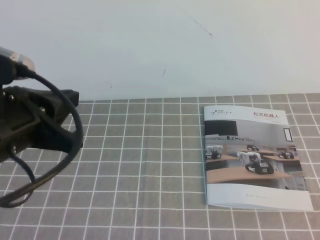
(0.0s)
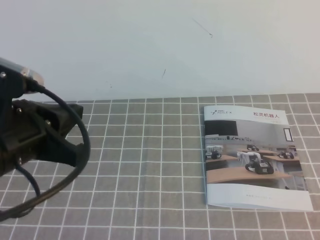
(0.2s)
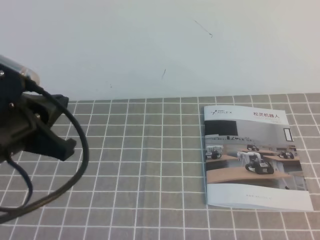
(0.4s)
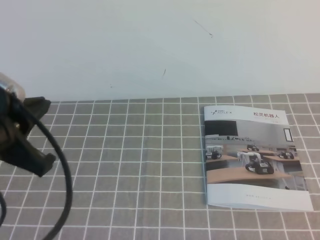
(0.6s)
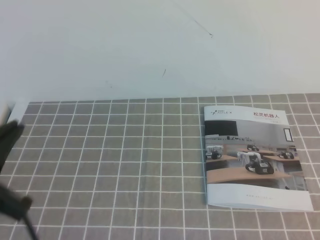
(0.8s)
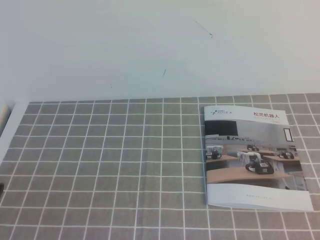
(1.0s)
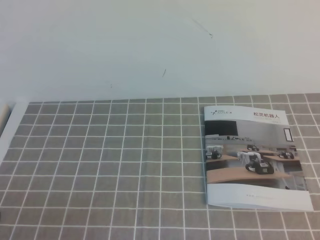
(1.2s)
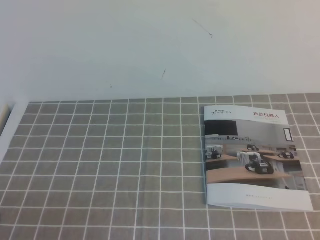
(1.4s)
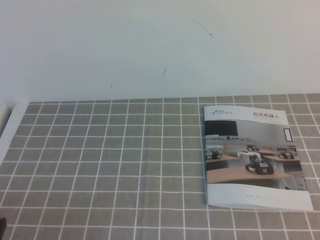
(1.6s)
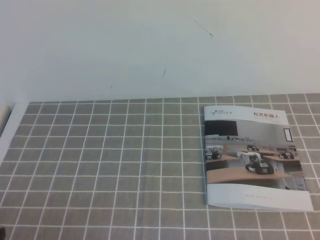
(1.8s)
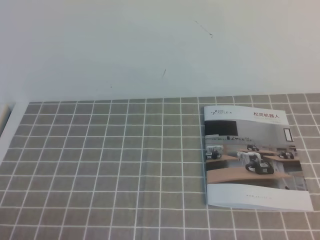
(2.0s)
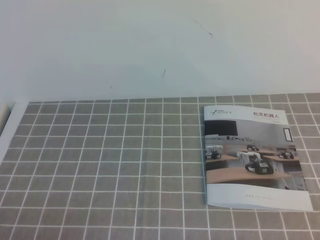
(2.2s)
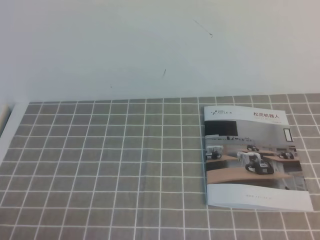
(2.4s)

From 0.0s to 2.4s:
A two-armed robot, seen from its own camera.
Task of the whole recording: on the grey tablecloth, hold the book with one hand and close it with the other.
Step, from 0.0s to 2.4s: Close the open book.
From 0.0s to 1.2s: The left gripper travels downward, backward and to the left by about 20 cm.

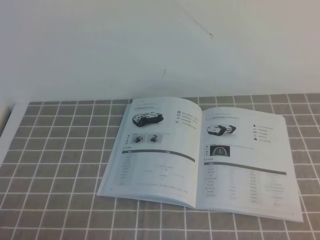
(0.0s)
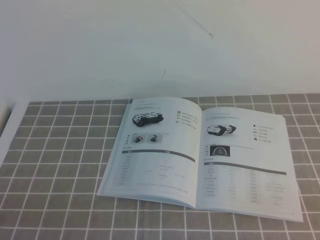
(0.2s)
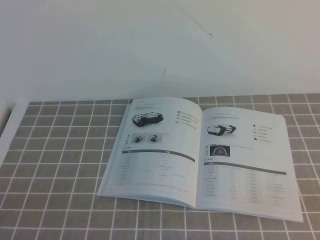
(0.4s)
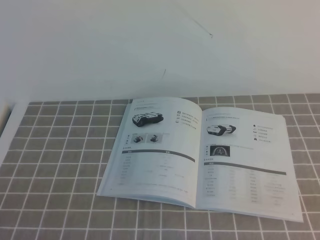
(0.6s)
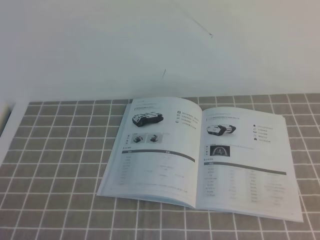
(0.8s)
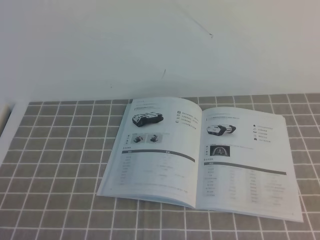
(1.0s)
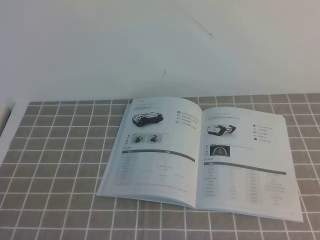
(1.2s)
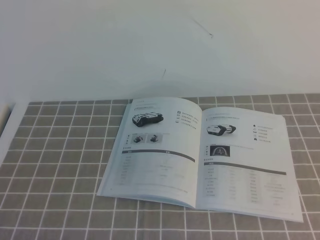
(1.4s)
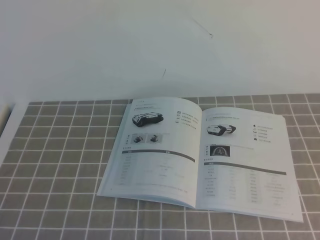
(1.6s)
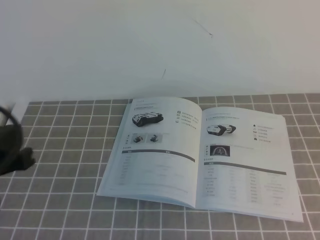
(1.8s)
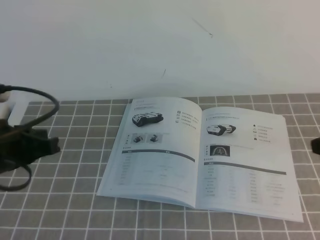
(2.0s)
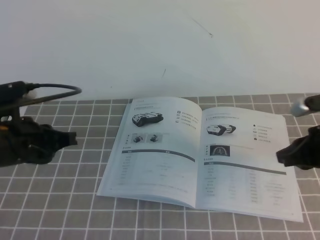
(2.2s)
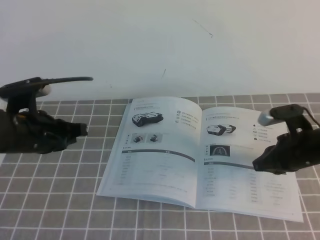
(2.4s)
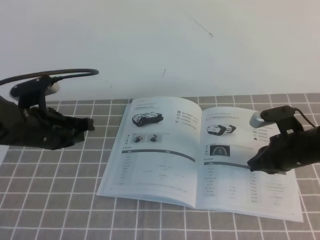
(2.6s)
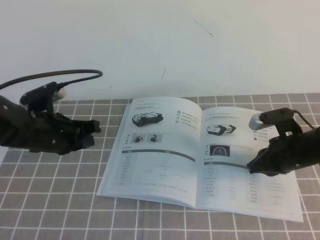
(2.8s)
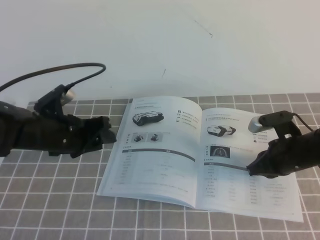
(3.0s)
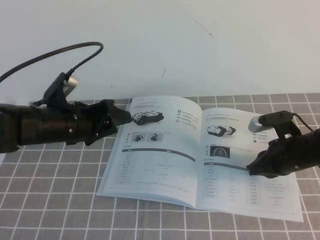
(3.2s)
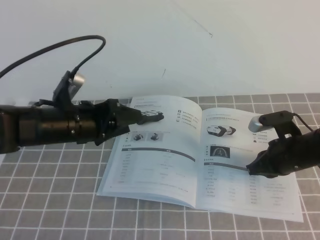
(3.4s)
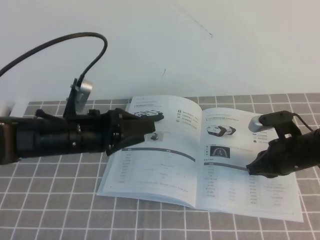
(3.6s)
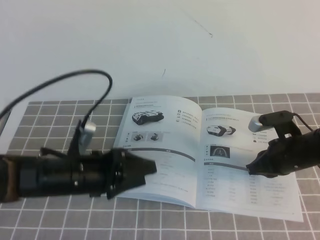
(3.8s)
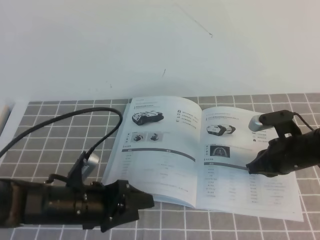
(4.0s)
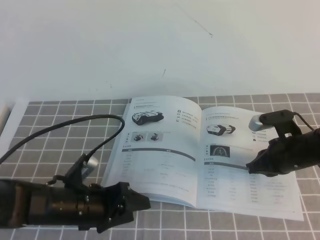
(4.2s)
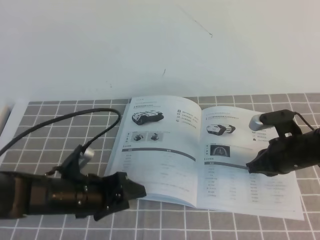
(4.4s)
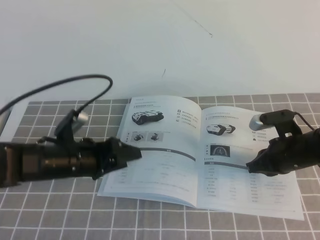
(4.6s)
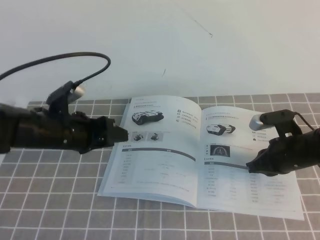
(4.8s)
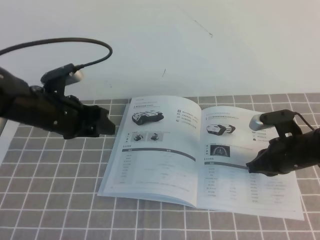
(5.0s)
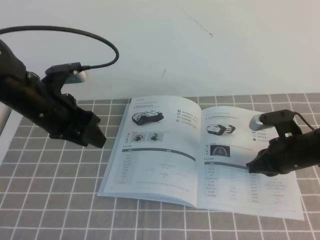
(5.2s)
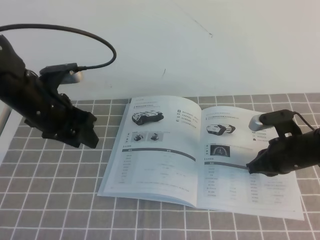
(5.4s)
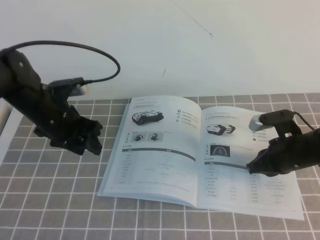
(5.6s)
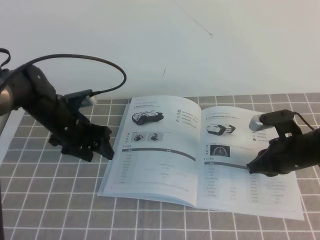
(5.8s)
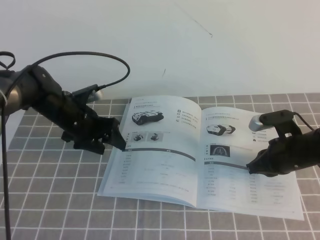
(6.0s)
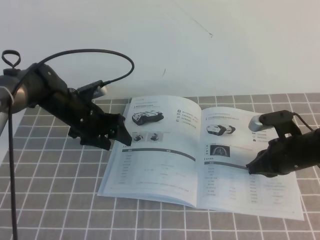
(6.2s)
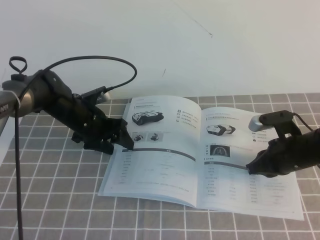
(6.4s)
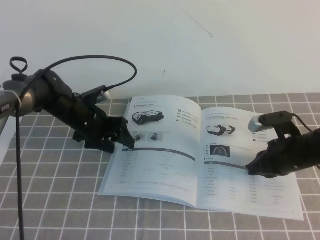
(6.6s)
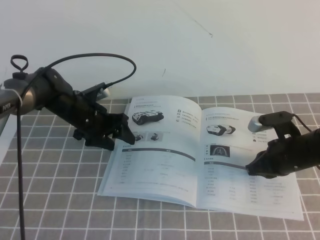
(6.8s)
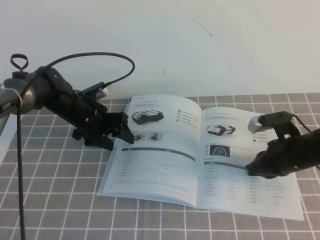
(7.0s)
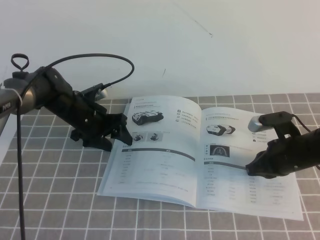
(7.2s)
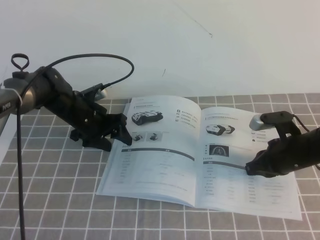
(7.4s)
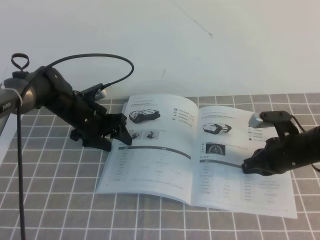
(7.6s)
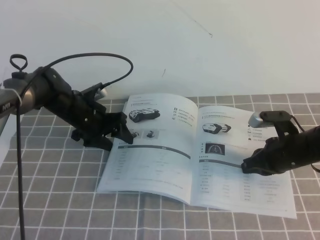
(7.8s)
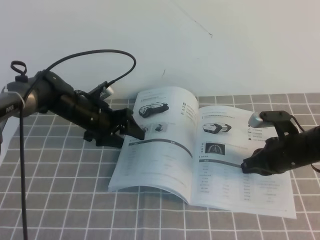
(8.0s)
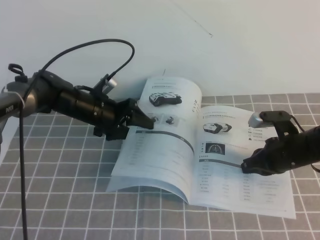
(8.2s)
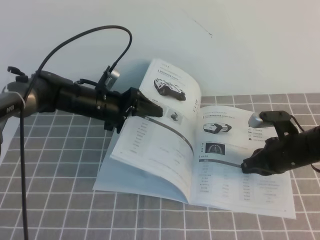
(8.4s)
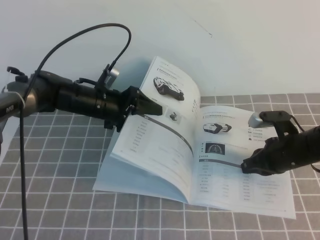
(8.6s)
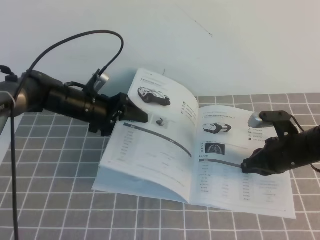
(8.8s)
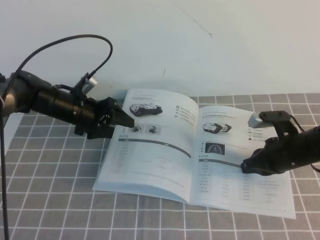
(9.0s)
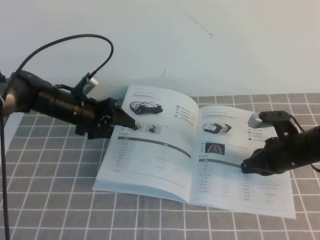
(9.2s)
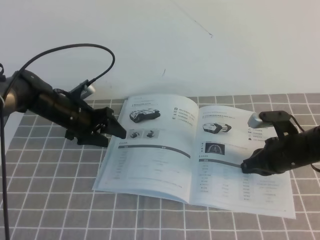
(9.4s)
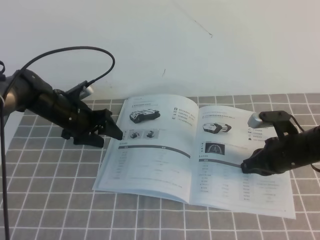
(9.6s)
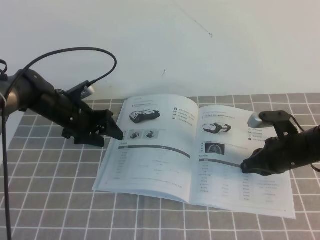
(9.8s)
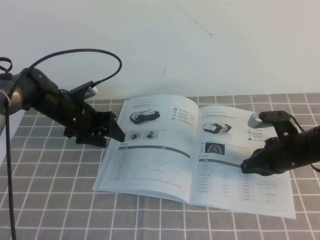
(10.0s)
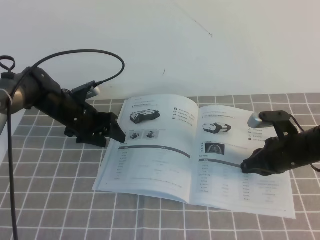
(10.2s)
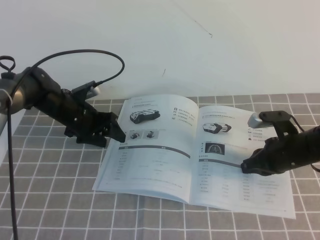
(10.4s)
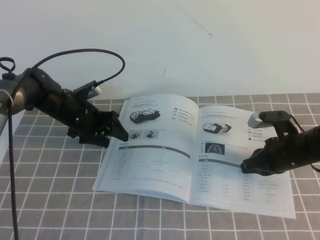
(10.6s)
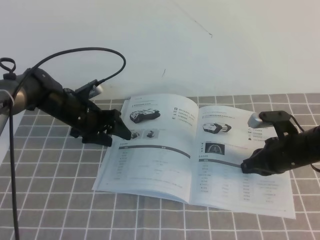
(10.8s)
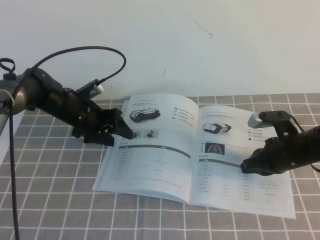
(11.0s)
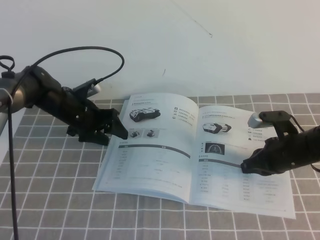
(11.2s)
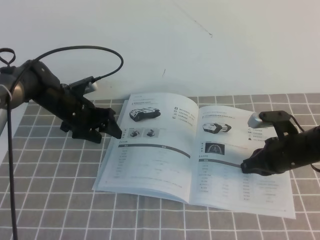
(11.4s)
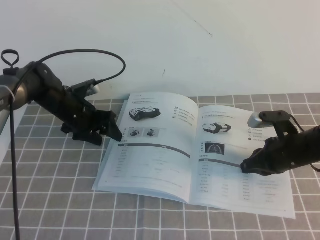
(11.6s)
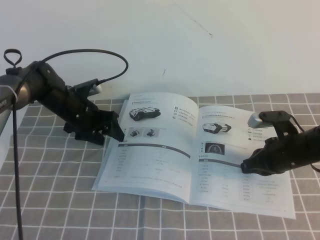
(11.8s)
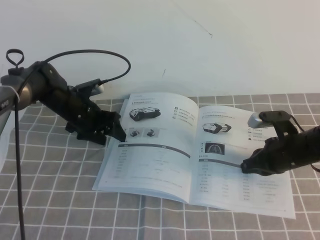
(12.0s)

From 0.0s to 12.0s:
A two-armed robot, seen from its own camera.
Task of the whole recording: on the grey tablecloth, hold the book with one hand and close it with the other.
From 1.6s to 3.0s: Both grippers move forward and downward, roughly 30 cm. The left gripper opens its fingers.
From 3.0s to 4.4s: The left gripper heads backward and downward, covering roughly 10 cm, and opens up.
From 4.4s to 6.0s: The left gripper is displaced forward by about 15 cm.
From 6.0s to 7.6s: The grippers make only small movements.
From 9.0s to 10.4s: The grippers make only small movements.
From 10.4s to 12.0s: There are only small adjustments of the grippers.

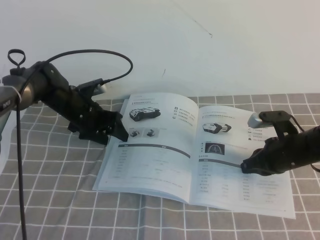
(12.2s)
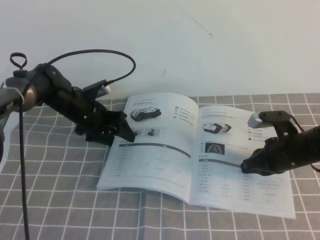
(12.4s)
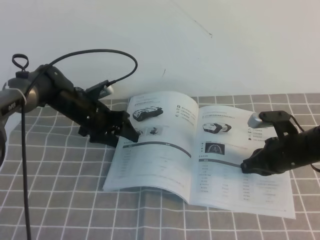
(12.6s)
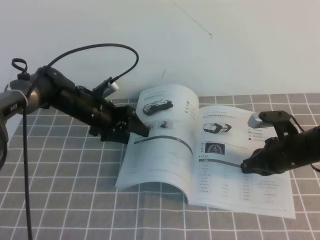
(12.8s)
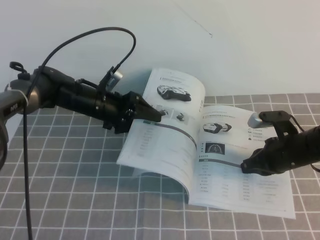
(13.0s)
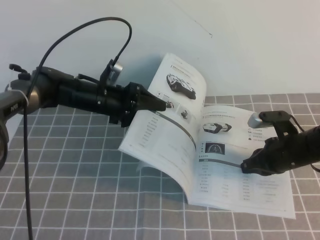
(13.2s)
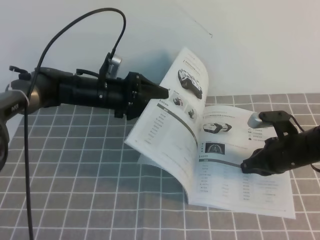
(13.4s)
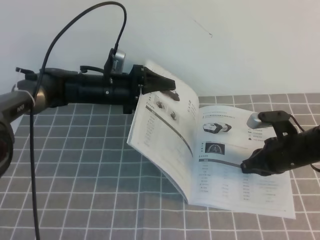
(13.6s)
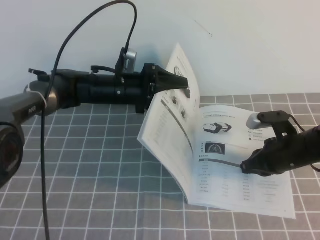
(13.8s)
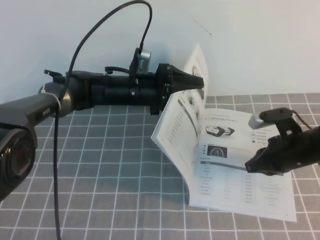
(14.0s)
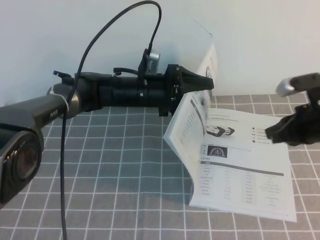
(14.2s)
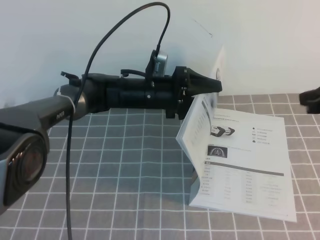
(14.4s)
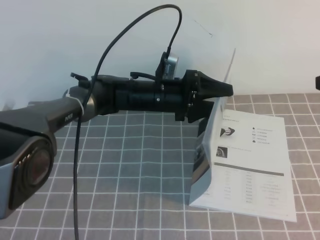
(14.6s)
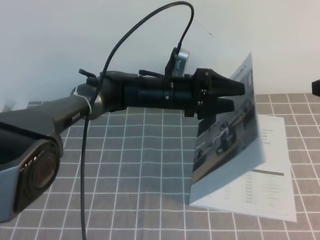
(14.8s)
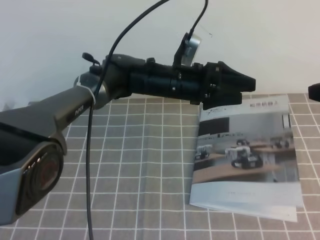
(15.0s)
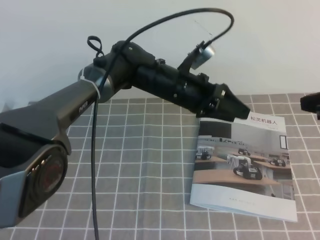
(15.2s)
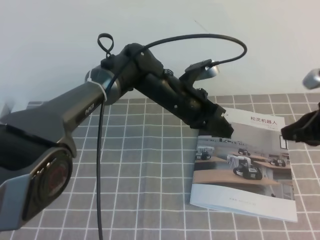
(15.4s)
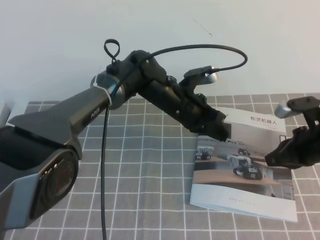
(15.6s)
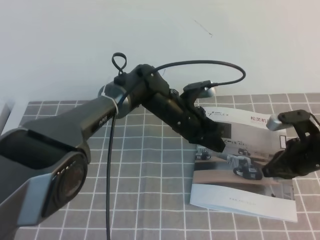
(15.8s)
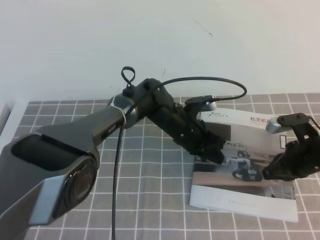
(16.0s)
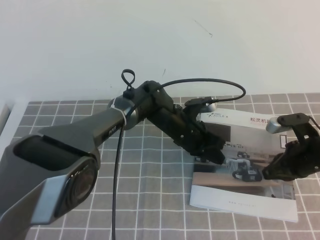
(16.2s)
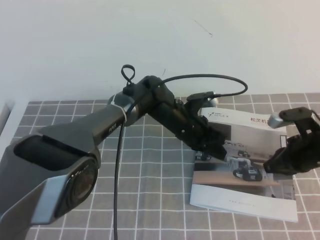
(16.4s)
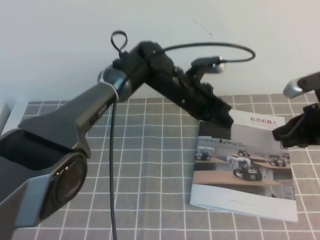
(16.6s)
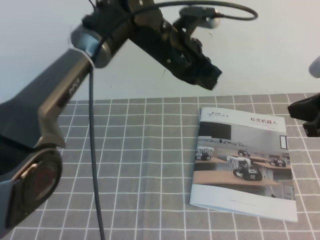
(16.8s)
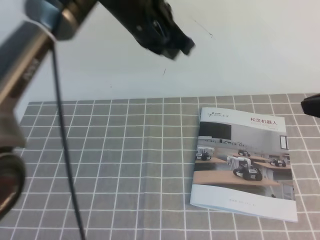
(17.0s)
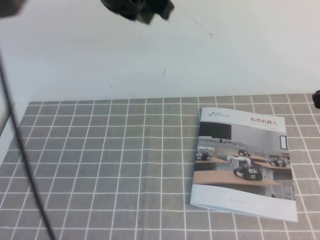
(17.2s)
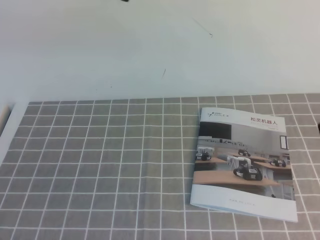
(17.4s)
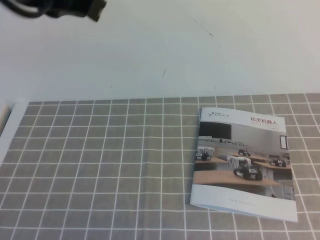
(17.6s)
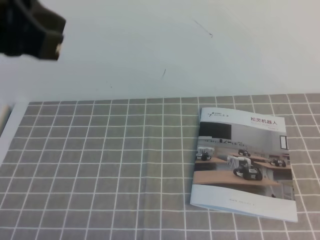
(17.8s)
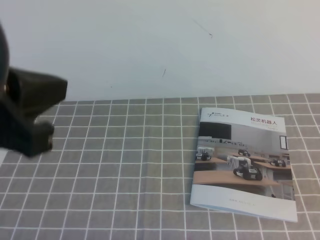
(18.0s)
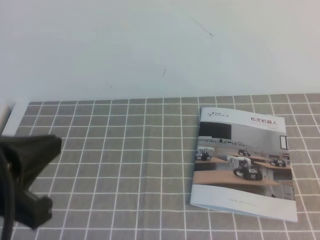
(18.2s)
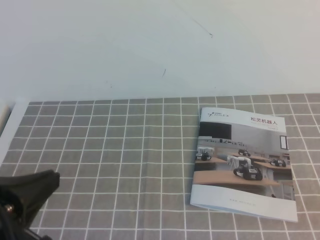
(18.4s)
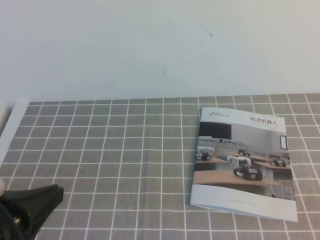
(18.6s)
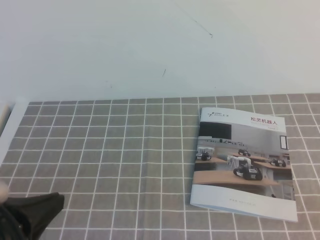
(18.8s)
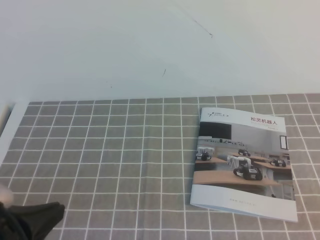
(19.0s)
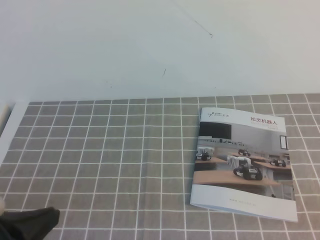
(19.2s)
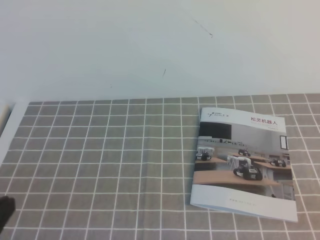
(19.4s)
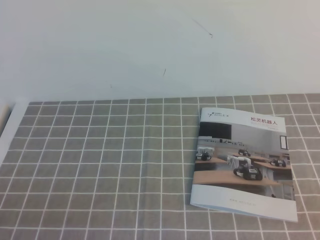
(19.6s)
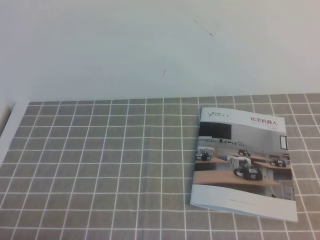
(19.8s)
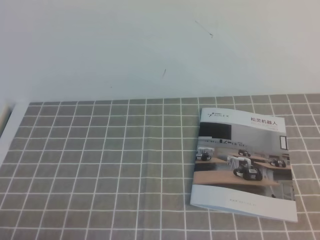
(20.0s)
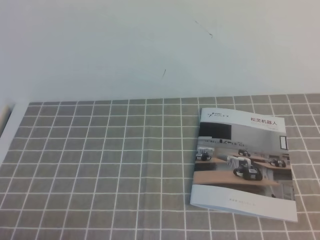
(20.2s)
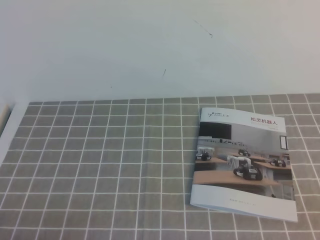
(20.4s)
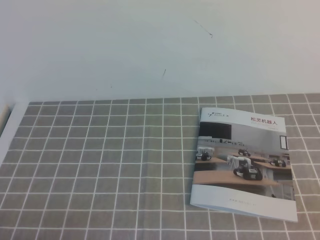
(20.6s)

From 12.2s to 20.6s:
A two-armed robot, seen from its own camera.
Task of the whole recording: on the grey tablecloth, hold the book with one hand and close it with the other.
From 12.2s to 13.6s: The left gripper travels to the right by roughly 5 cm.
From 13.6s to 15.0s: The left gripper travels to the right by approximately 10 cm. Meanwhile the right gripper travels upward by approximately 20 cm.
From 15.0s to 16.4s: The right gripper is displaced downward by about 15 cm, while the left gripper shifts approximately 10 cm downward, and closes up.
From 16.4s to 17.8s: The left gripper heads upward, backward and to the left, covering some 50 cm. The right gripper goes some 25 cm backward and upward.
From 17.8s to 19.2s: The left gripper goes some 25 cm downward and backward.
From 19.2s to 20.6s: The left gripper shifts approximately 10 cm downward.
